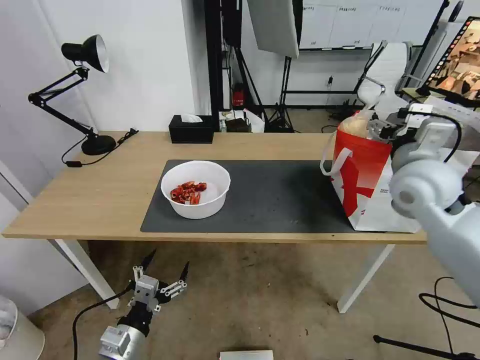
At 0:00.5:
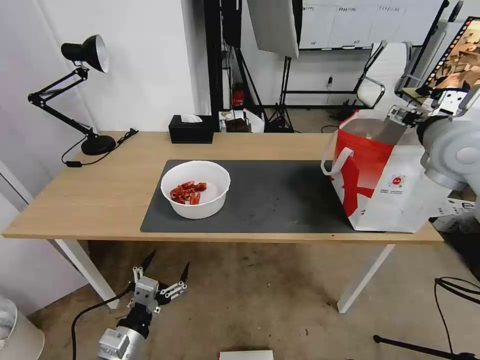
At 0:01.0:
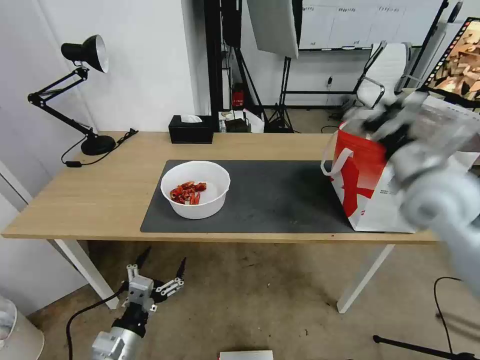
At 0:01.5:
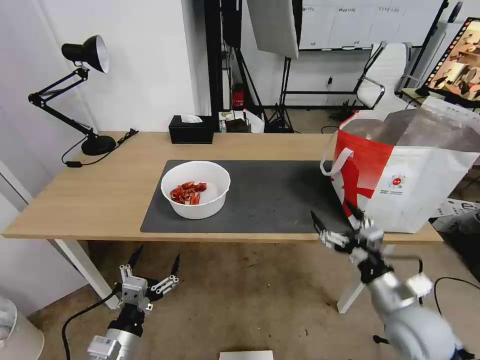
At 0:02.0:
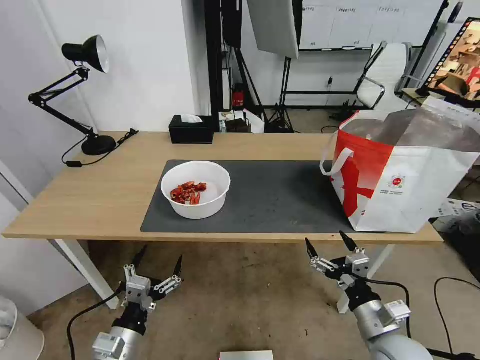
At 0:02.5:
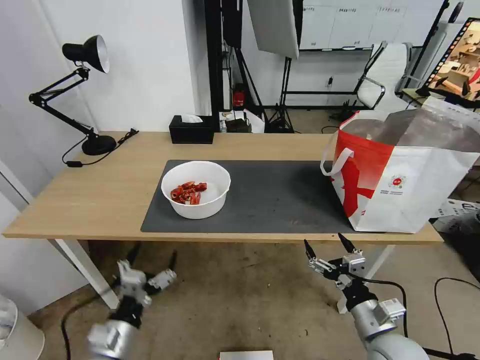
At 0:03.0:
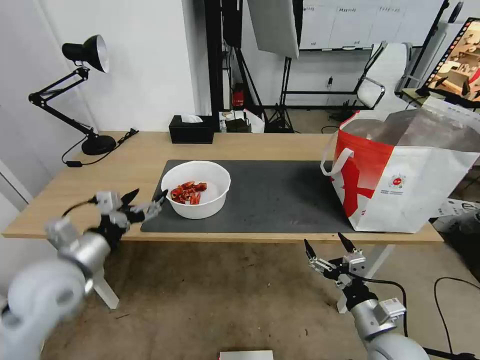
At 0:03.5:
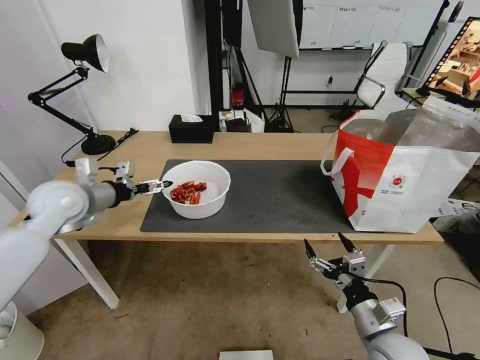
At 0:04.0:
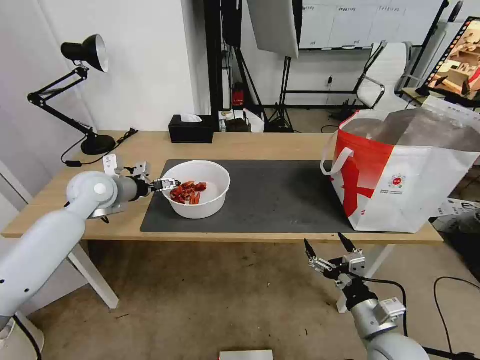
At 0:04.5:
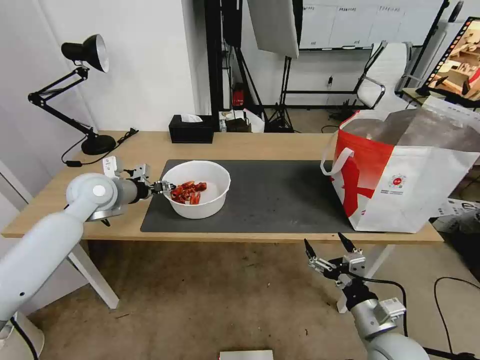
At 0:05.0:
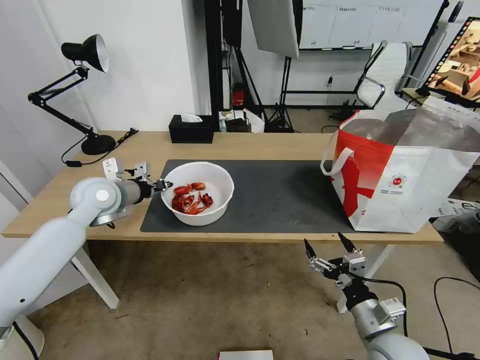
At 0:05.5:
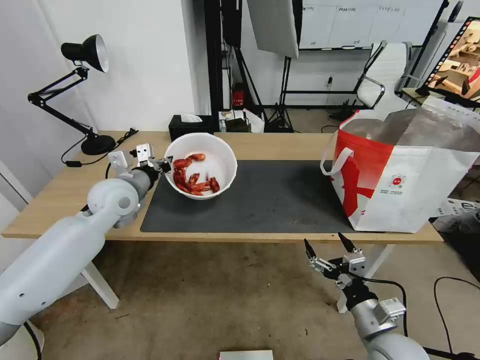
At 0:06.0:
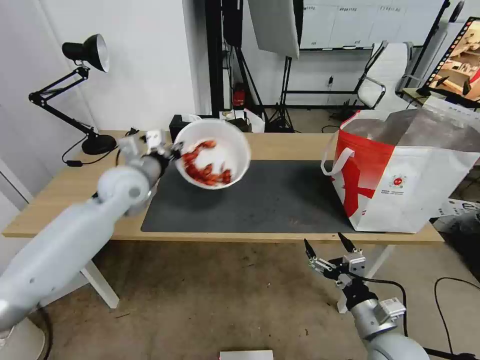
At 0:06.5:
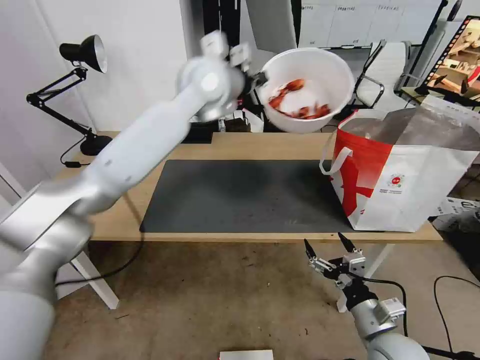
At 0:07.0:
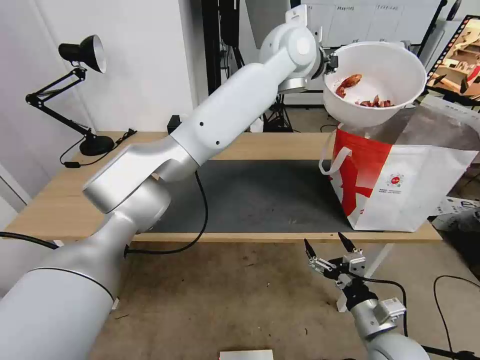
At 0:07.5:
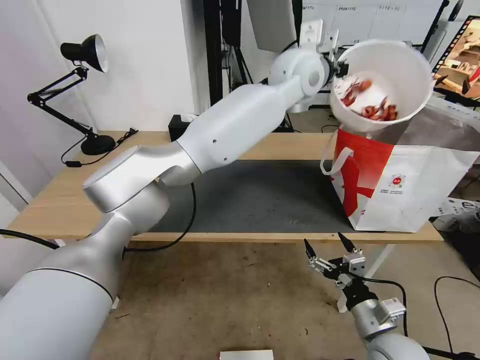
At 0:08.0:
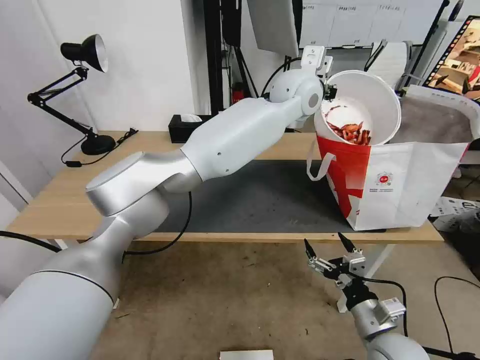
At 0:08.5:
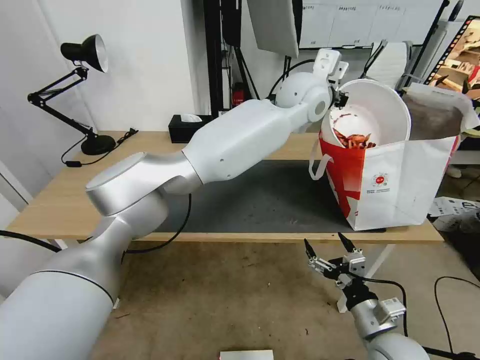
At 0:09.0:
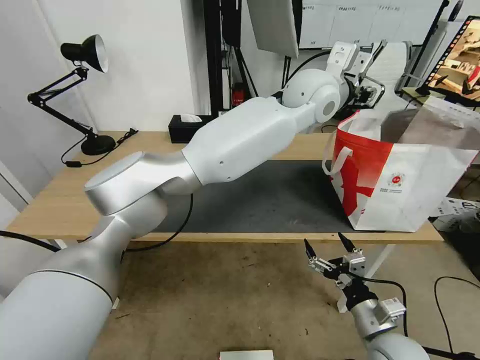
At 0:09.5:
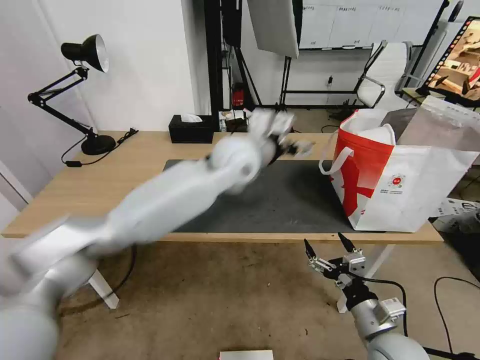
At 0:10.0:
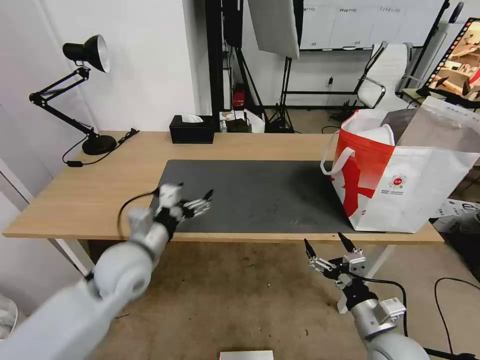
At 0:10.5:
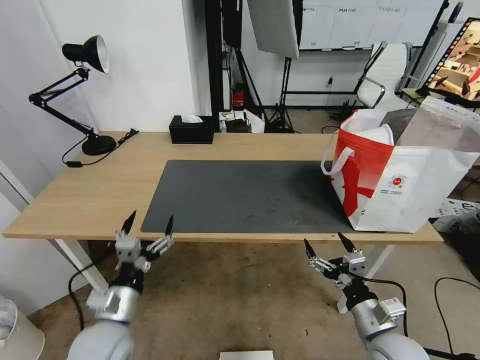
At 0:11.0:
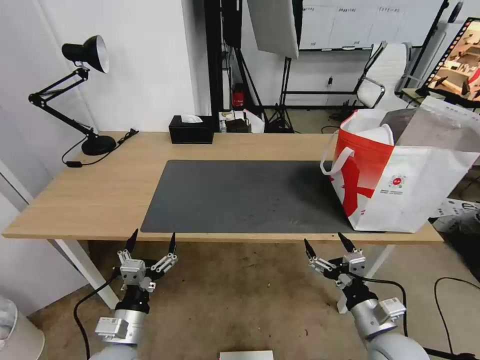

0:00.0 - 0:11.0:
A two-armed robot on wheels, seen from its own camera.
Task of the whole recording: Pick up the trash from the table and place it into the takeout bag.
0:00.0 - 0:02.0: The right gripper goes approximately 35 cm downward and backward.
0:02.0 - 0:03.5: The left gripper goes roughly 35 cm forward and upward.
0:03.5 - 0:05.5: The left gripper heads to the right, covering approximately 10 cm, and closes up.
0:05.5 - 0:07.5: The left gripper travels to the right and upward by some 40 cm.
0:07.5 - 0:09.0: The left gripper opens its fingers.
0:09.0 - 0:11.0: The left gripper goes about 60 cm downward, to the left and backward, and opens.

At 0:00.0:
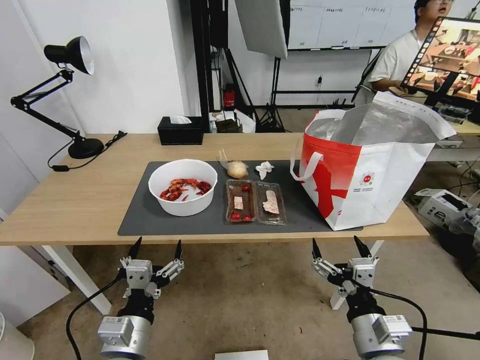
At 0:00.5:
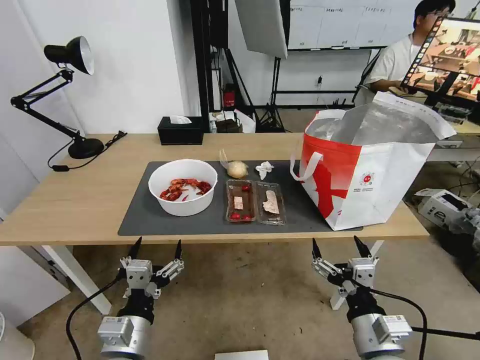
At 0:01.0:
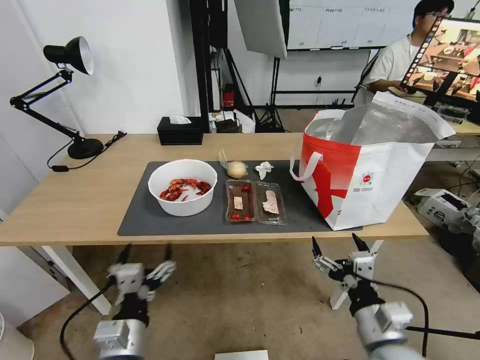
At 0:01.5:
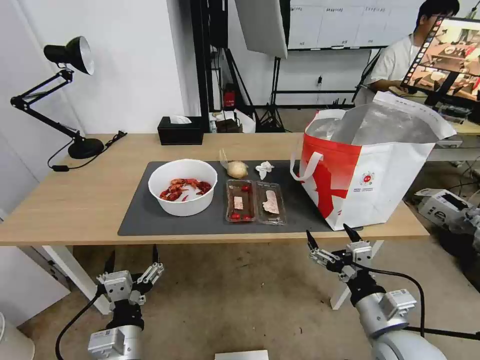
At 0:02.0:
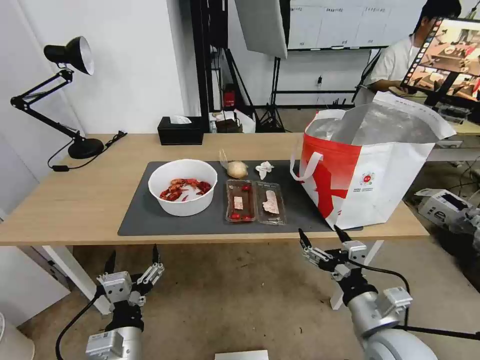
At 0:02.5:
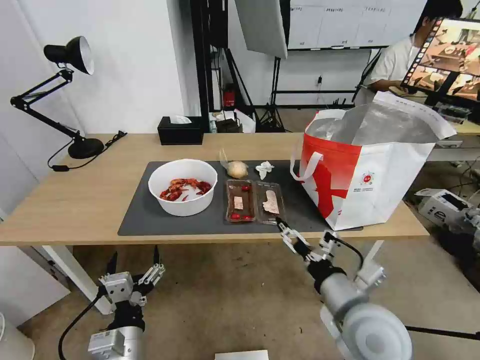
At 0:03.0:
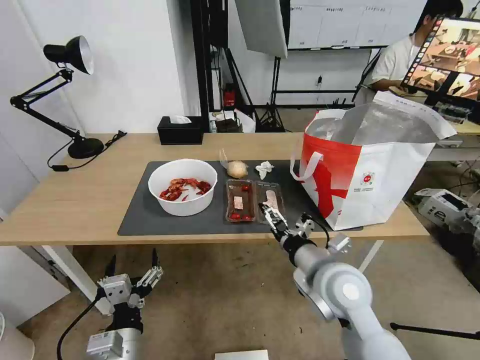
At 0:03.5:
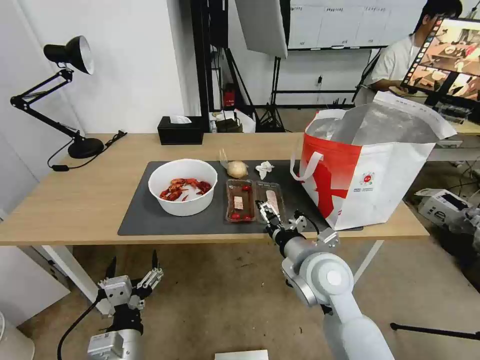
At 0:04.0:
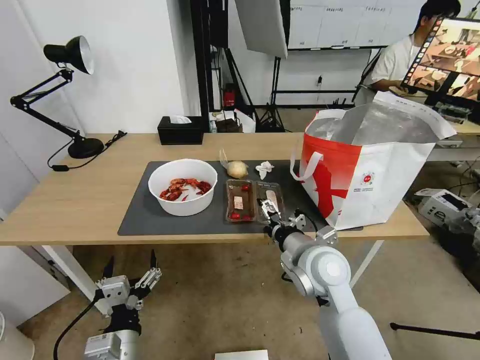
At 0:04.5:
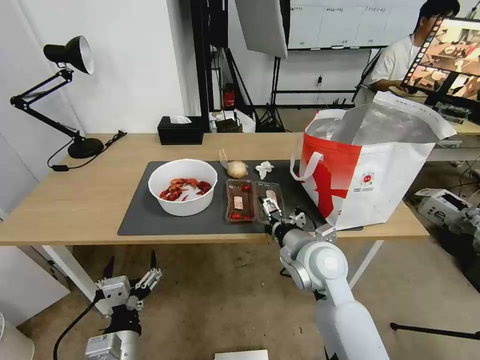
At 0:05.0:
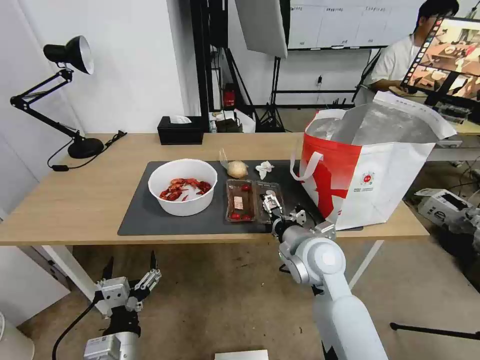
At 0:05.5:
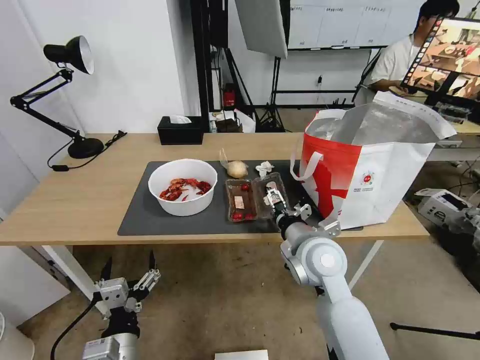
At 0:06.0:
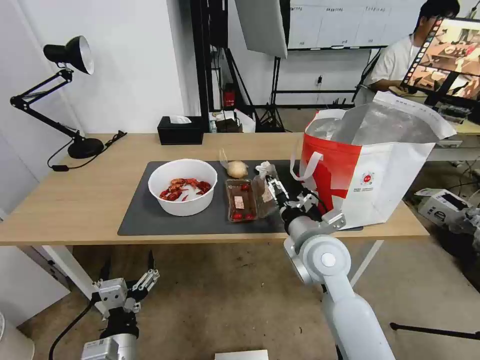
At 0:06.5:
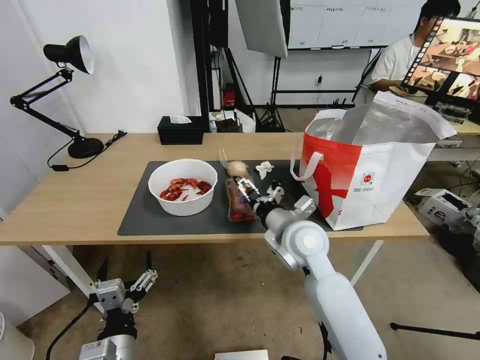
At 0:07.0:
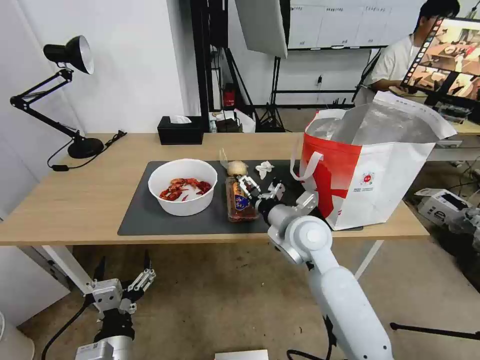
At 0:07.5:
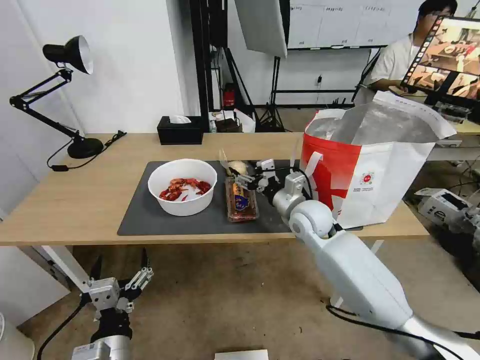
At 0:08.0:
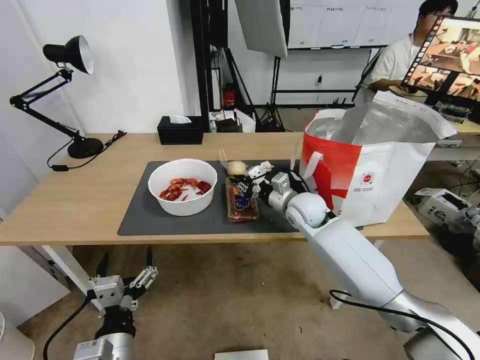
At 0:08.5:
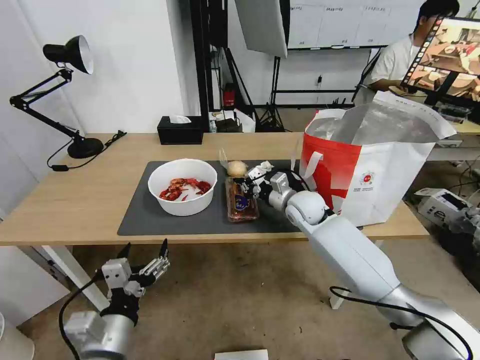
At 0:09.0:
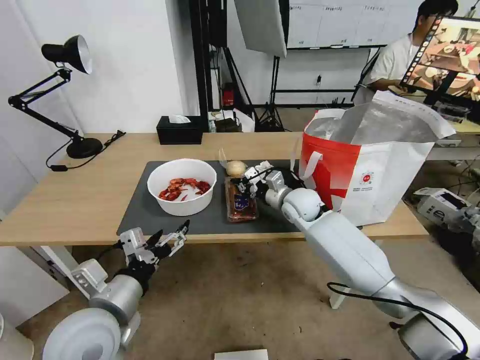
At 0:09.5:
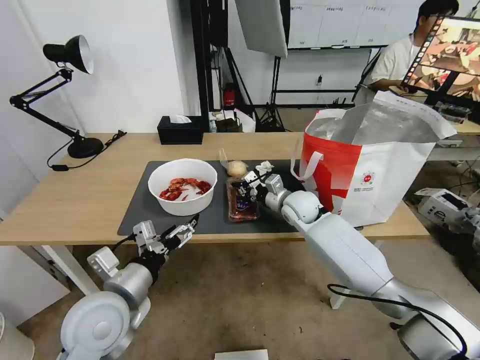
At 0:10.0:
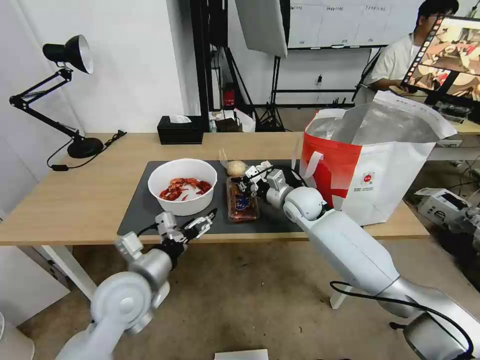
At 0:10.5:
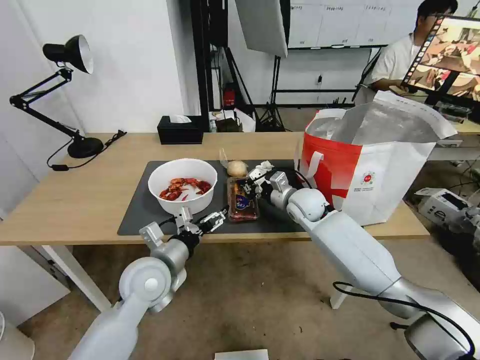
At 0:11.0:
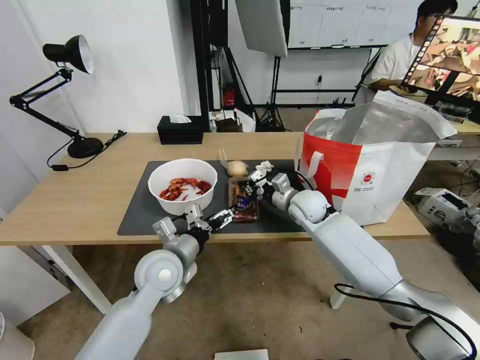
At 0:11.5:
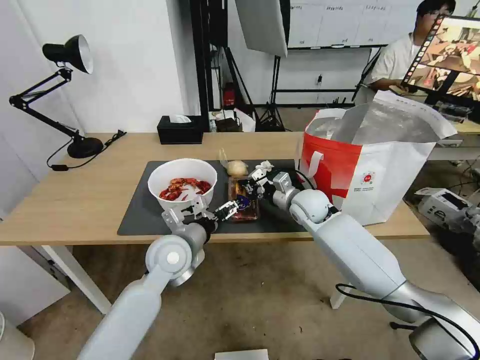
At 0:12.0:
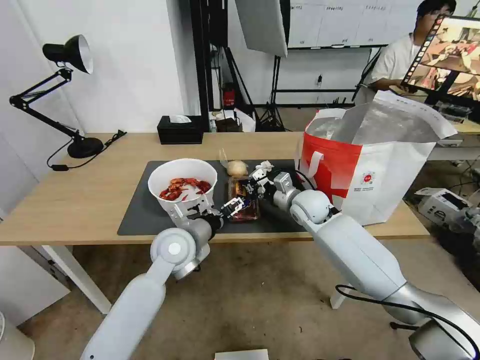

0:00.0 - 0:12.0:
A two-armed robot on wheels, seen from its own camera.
Task of the whole recording: Pick up the trash from the table and place it into the takeout bag.
0:02.0 - 0:04.0: The right gripper goes roughly 15 cm forward and to the left.
0:04.0 - 0:06.0: The grippers stay close to where they were, moving slightly.
0:06.0 - 0:08.0: The right gripper is displaced forward by roughly 15 cm, and closes its fingers.
0:08.0 - 0:10.0: The left gripper moves forward and upward, approximately 15 cm.
0:10.0 - 0:12.0: The left gripper goes some 15 cm forward and to the right.

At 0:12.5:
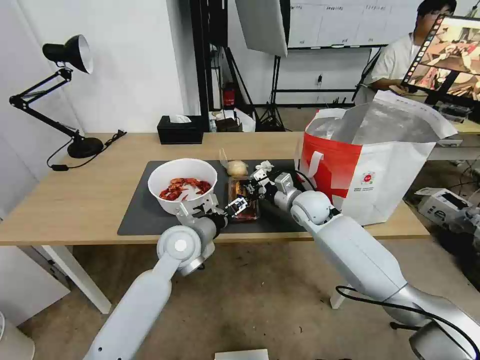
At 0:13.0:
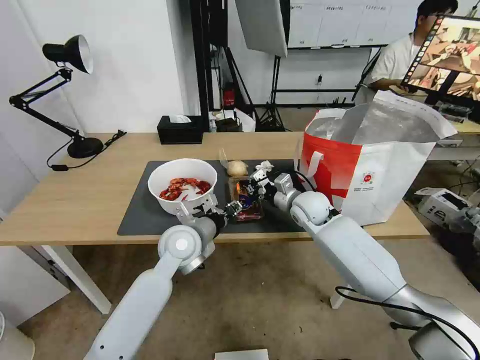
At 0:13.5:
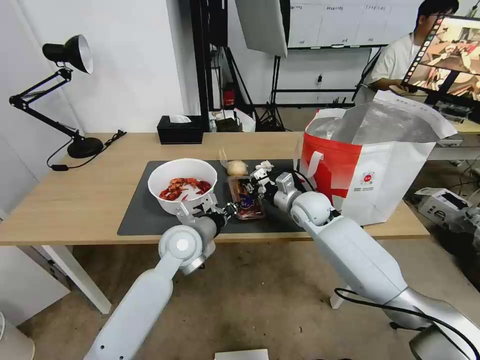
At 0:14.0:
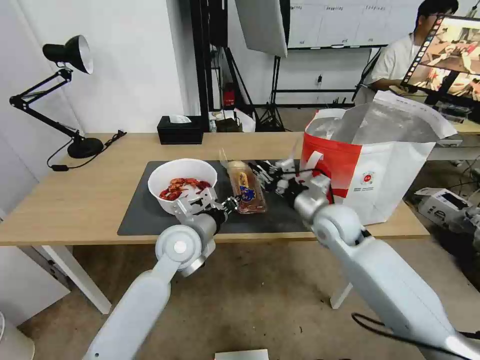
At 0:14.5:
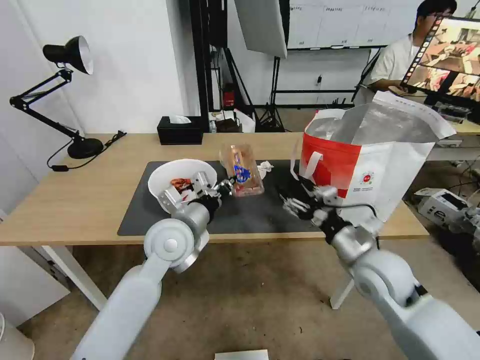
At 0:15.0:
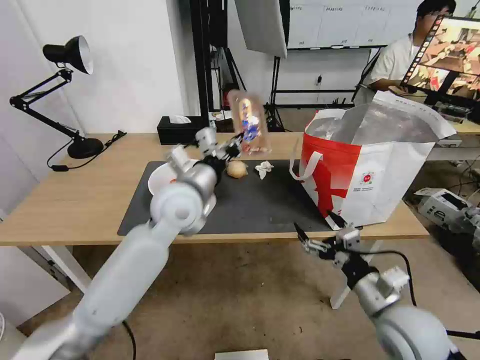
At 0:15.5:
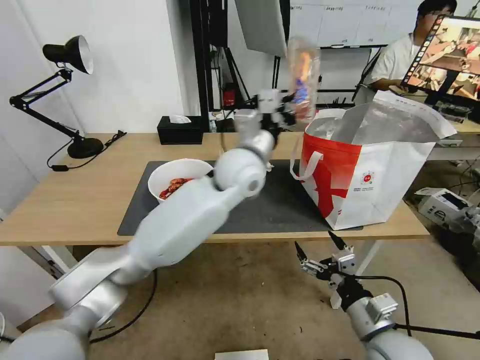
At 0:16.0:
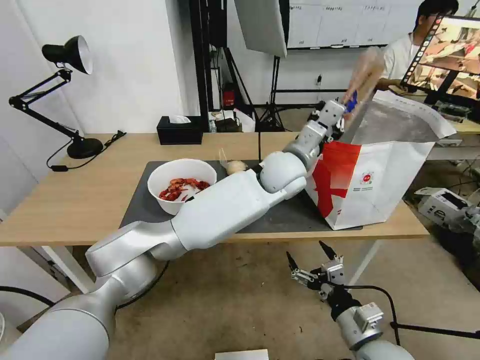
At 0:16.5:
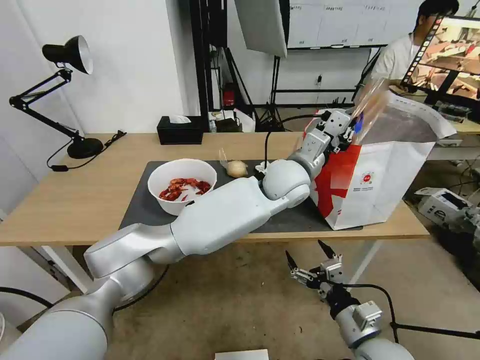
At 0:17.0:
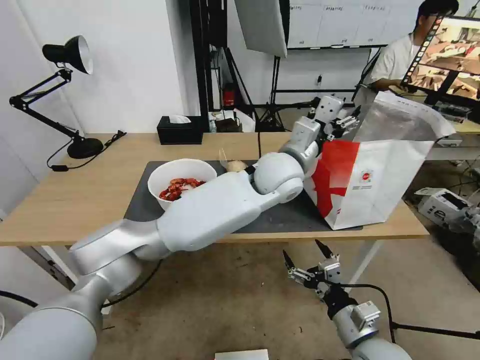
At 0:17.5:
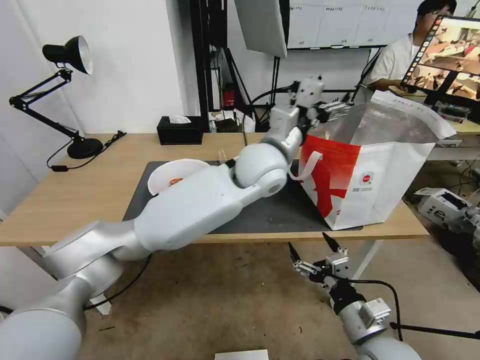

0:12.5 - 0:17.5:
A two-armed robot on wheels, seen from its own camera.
Task of the whole recording: Pick up the trash from the table and place it into the takeout bag.
0:12.5 - 0:15.0: The right gripper goes some 30 cm backward, and opens, while the left gripper goes roughly 10 cm upward, and closes its fingers.
0:15.0 - 0:17.5: The left gripper moves to the right, approximately 15 cm, and opens its fingers; the right gripper shifts by roughly 5 cm.
